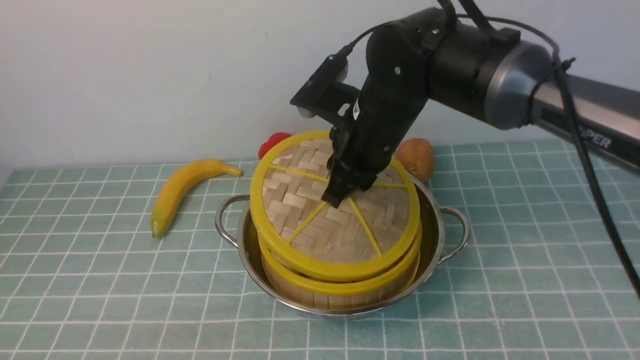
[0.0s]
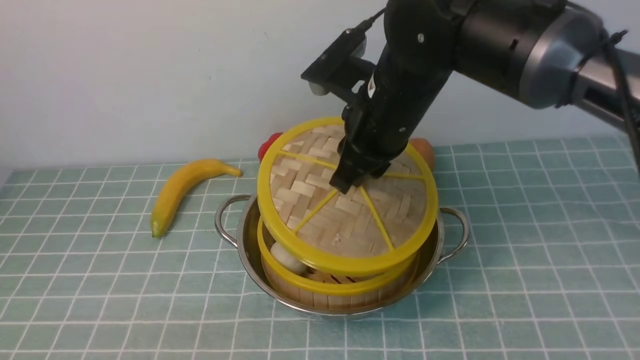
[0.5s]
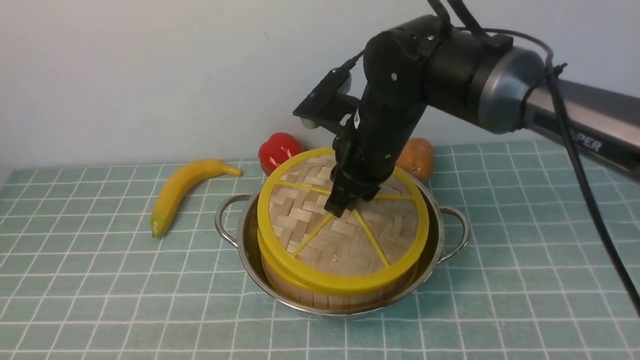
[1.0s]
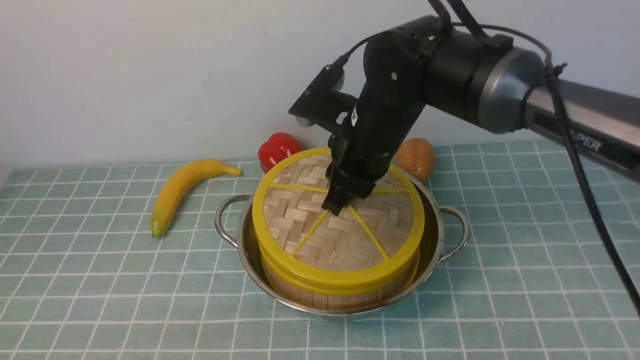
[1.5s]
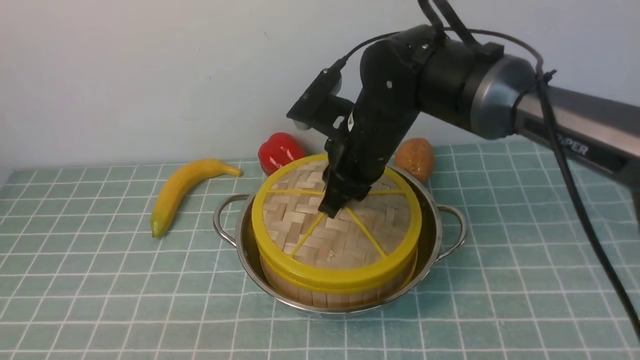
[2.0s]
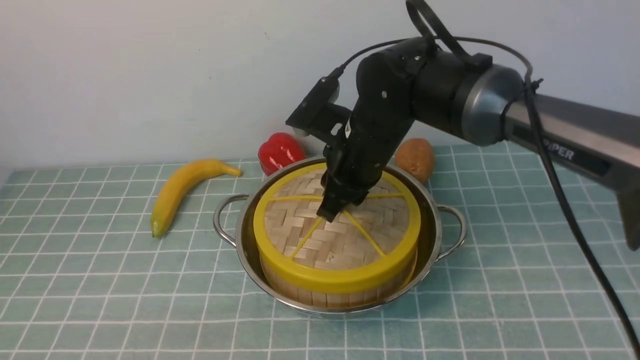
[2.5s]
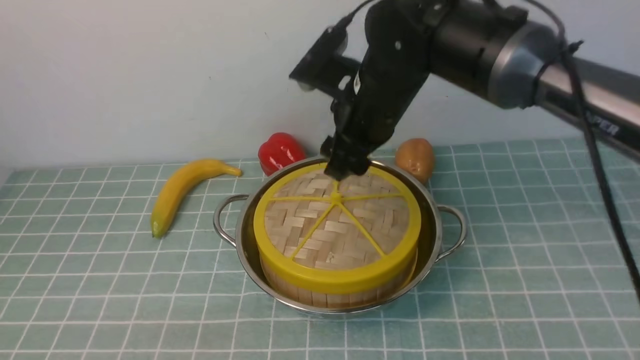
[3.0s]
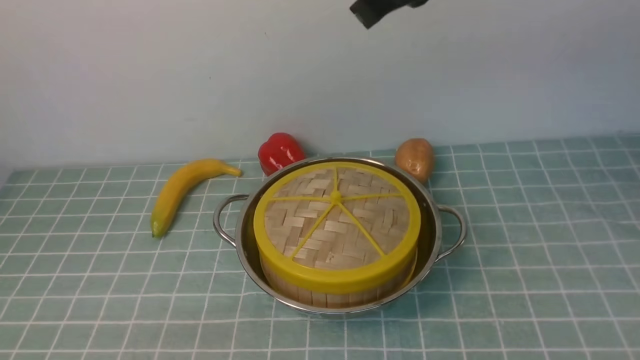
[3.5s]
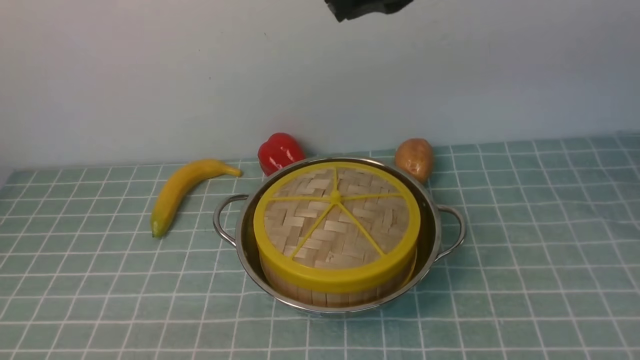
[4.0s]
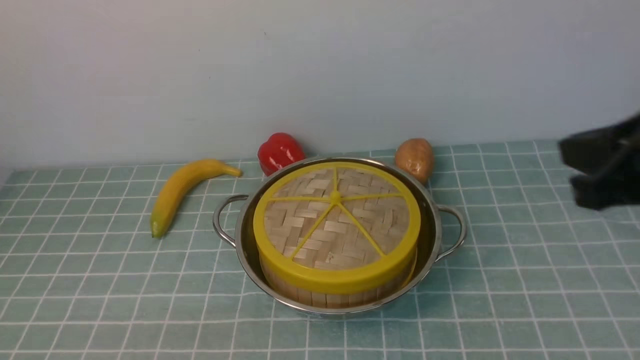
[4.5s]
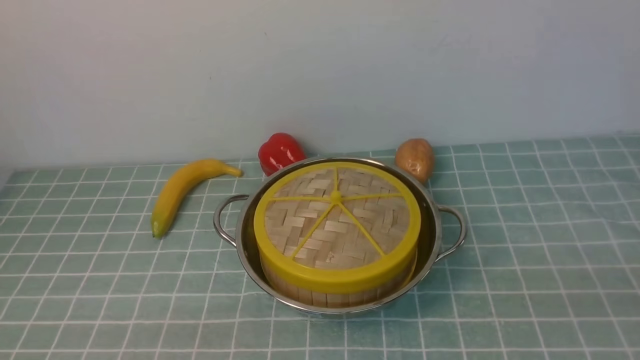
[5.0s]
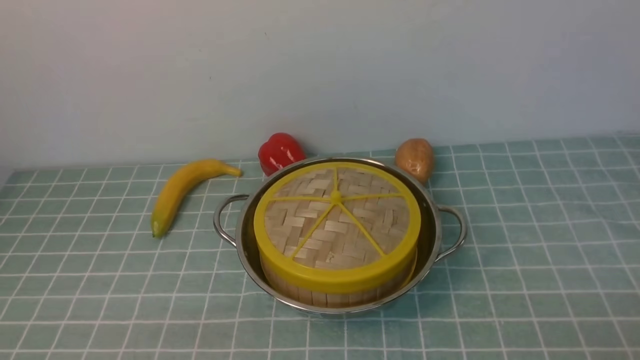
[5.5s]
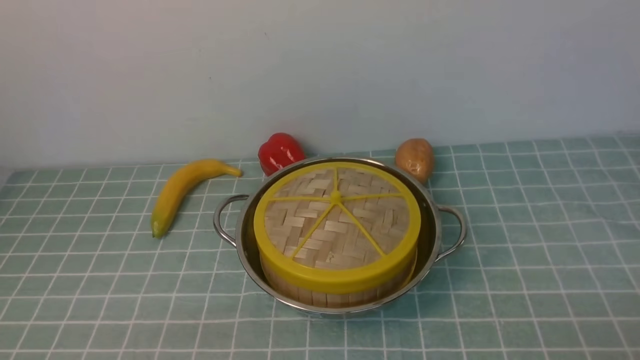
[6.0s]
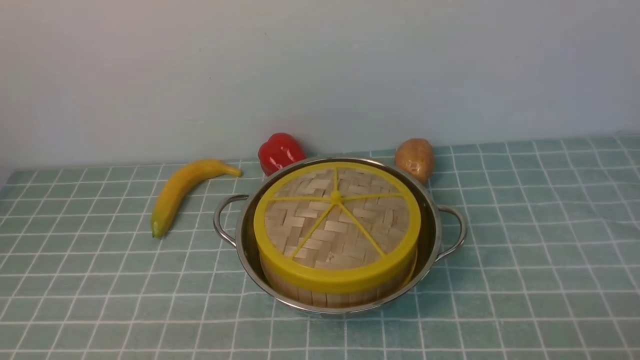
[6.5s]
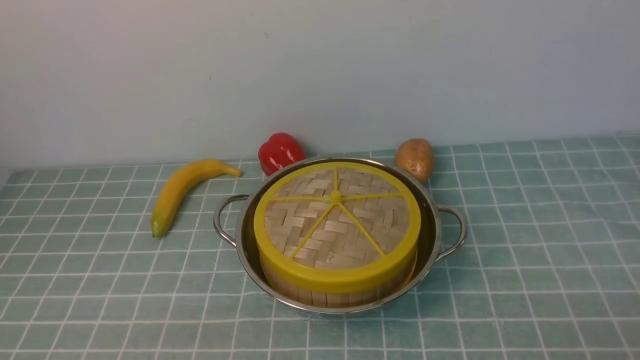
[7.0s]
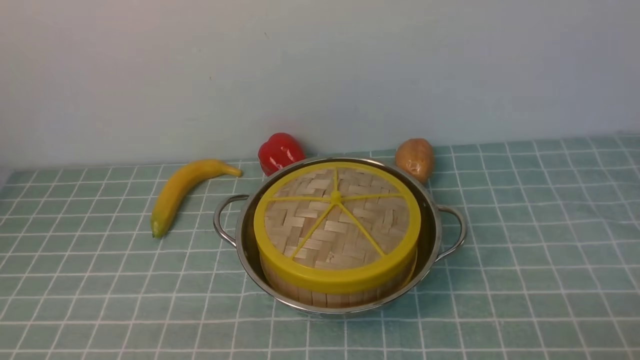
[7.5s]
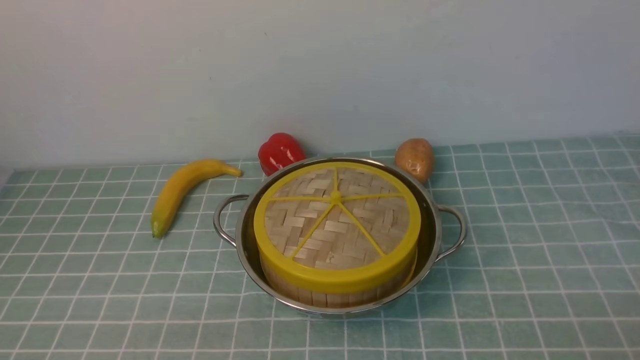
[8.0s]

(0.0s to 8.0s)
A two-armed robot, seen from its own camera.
Task of the whole recording: place the steamer in the pot on the blue tablecloth, and put the lid on the steamer.
Step, 0.0s - 3.0s: use the right arm to place the steamer lid on the steamer.
0.0s - 2.0s: The grippers move only a little.
2.0s - 4.0s: The right gripper goes approximately 20 cm upward, and closes.
6.0s - 8.0s: Both grippers stay about where they are.
